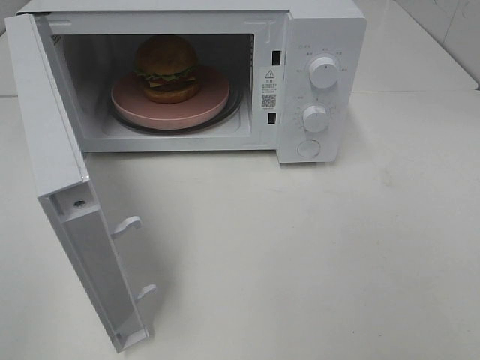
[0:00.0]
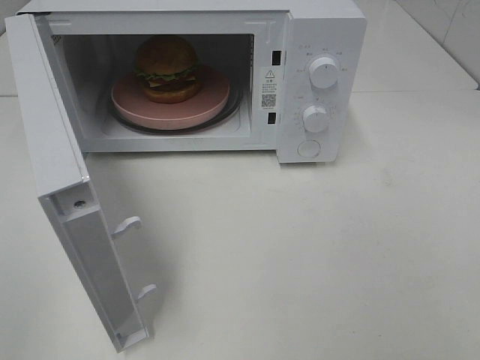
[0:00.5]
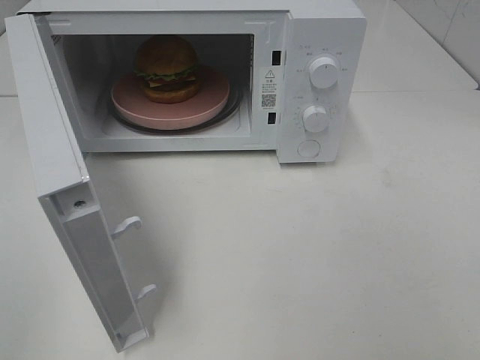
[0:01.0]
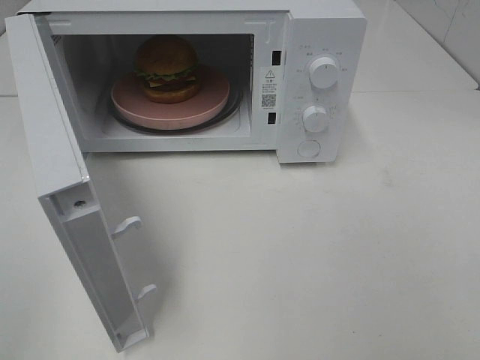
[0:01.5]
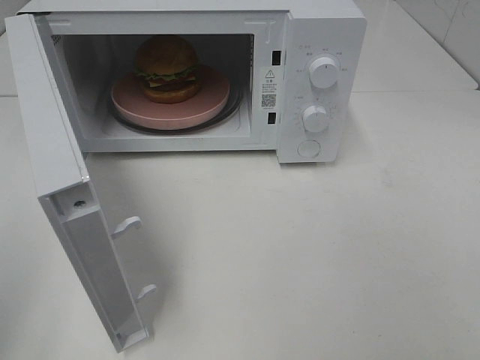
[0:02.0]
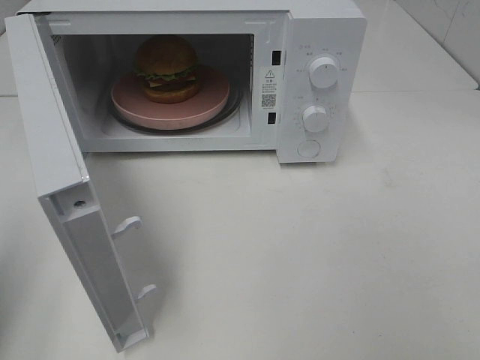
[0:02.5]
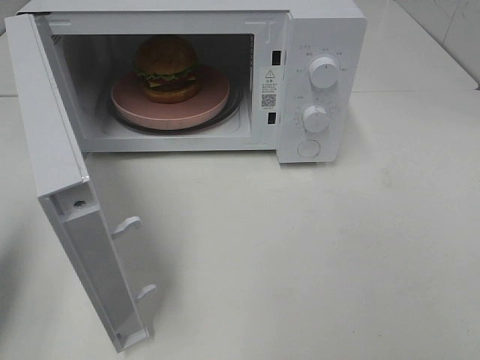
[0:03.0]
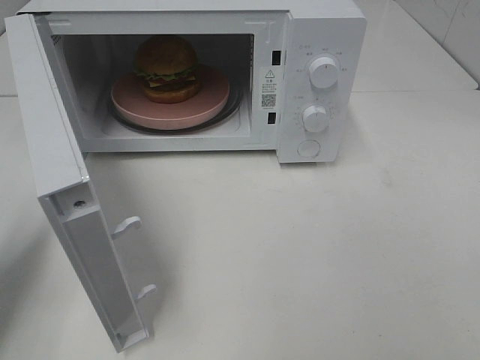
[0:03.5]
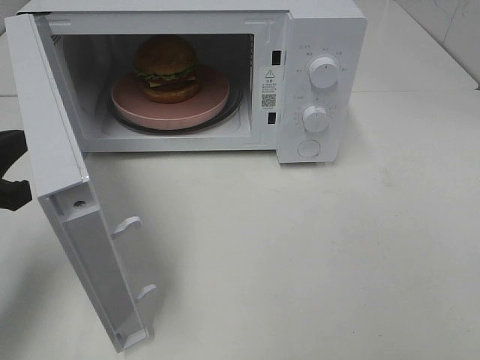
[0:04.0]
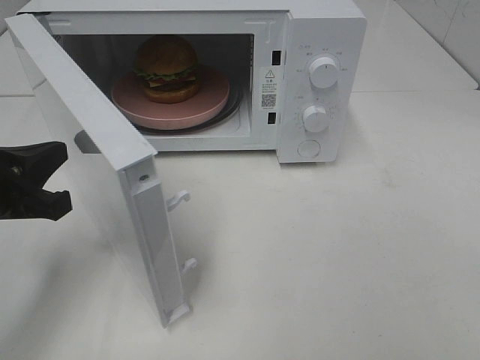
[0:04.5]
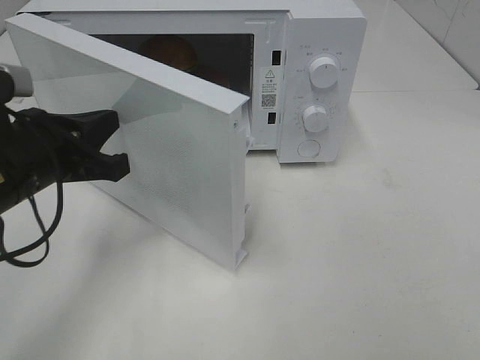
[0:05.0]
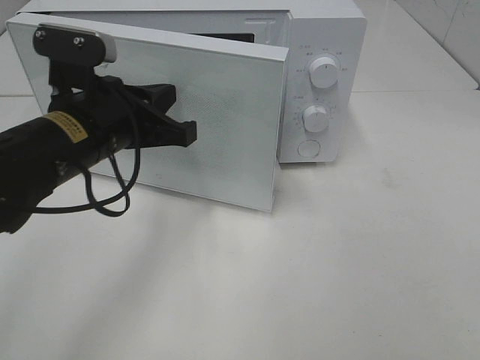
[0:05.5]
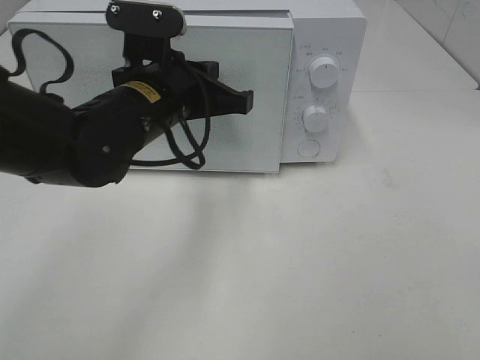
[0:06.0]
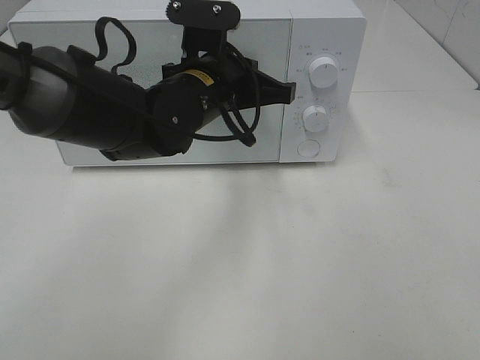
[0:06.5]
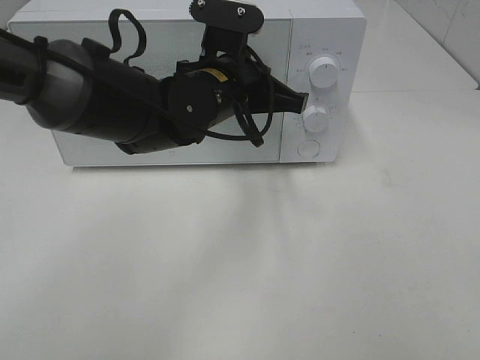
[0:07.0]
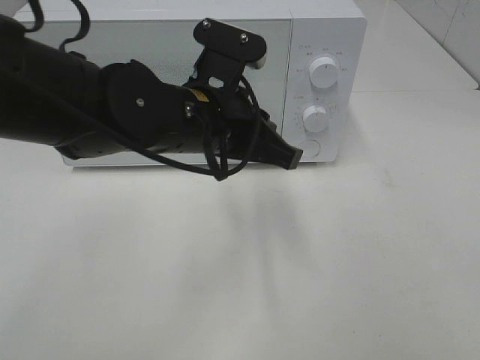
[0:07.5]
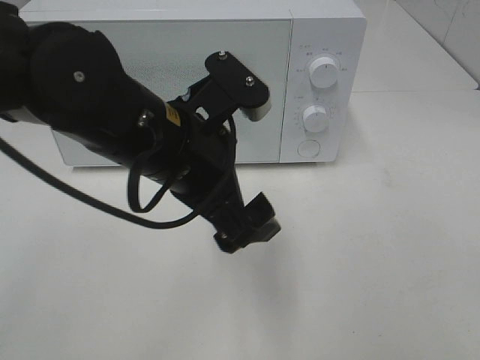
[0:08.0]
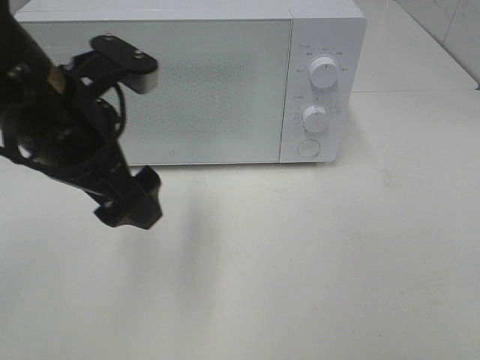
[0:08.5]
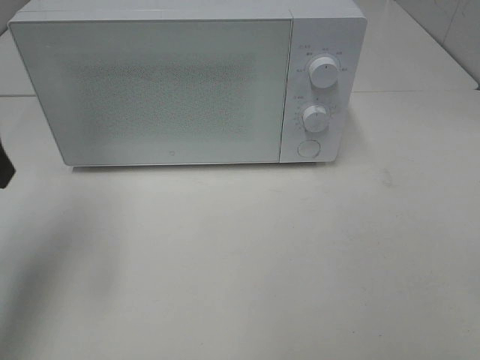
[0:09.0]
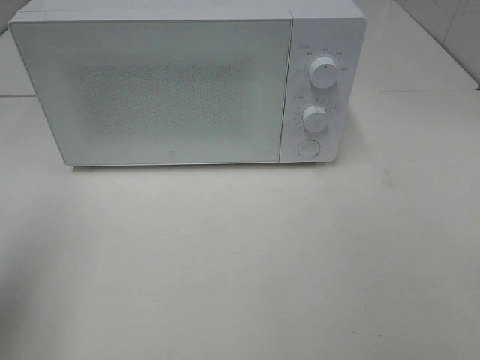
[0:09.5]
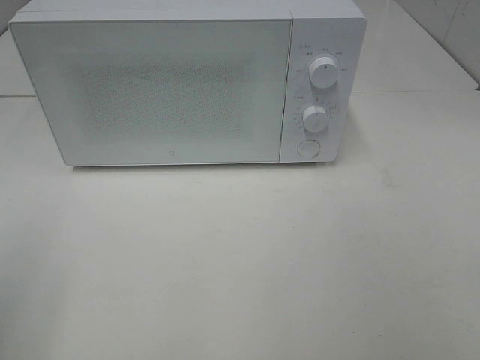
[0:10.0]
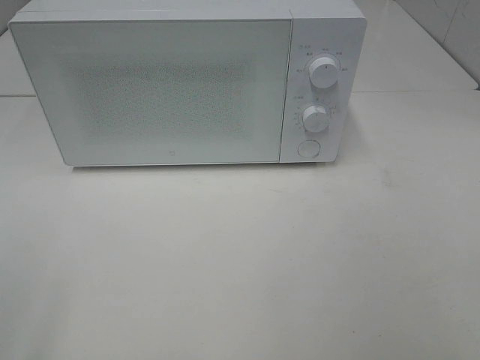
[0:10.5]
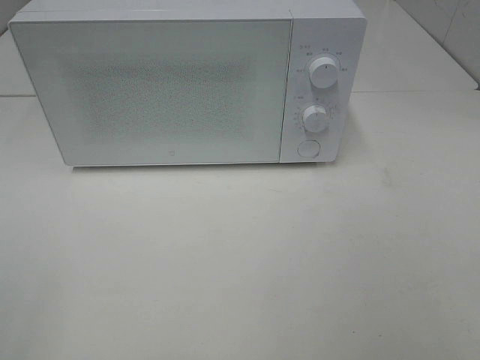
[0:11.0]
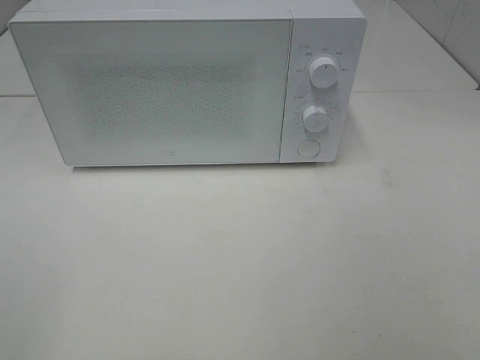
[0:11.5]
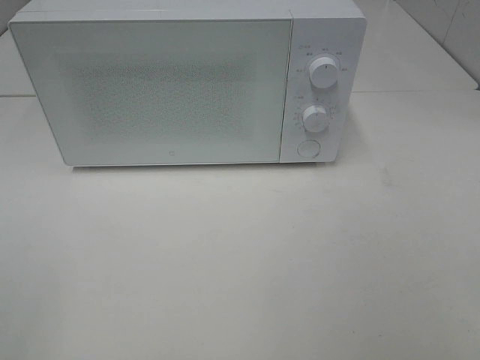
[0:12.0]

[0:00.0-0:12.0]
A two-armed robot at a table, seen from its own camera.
Task of the whole recording: Heat the burger.
Step, 0:00.0 to 0:07.0: Left hand: close the microwave door.
0:02.0 to 0:04.0: The left gripper is displaced forward and downward by roughly 20 cm.
0:04.0 to 0:06.0: The left gripper travels to the right and forward by some 20 cm.
0:06.0 to 0:08.0: The left gripper heads backward, covering some 10 cm, and opens.
0:08.0 to 0:10.0: The left gripper goes about 30 cm to the left and backward.

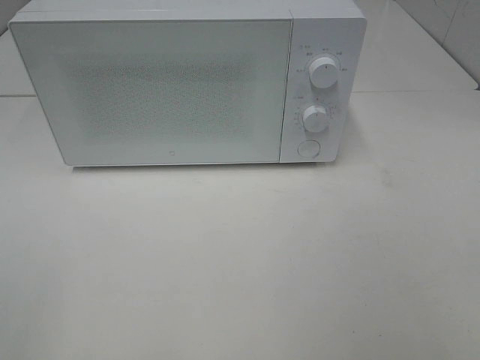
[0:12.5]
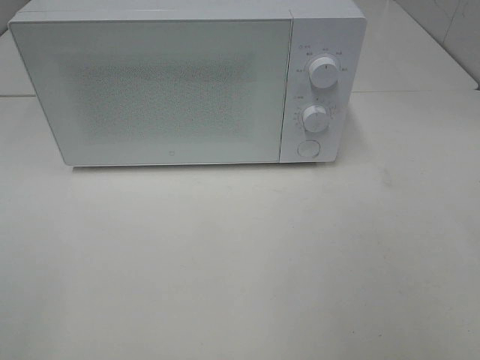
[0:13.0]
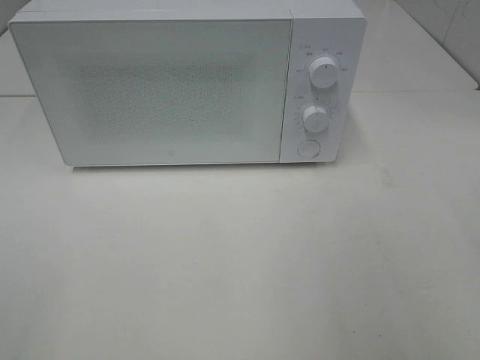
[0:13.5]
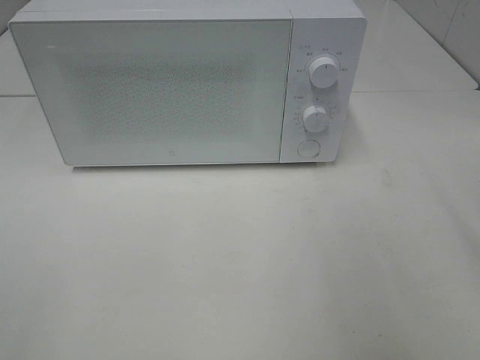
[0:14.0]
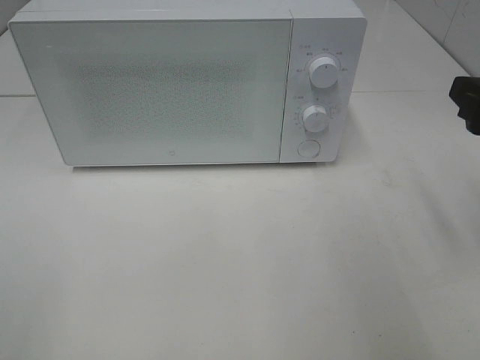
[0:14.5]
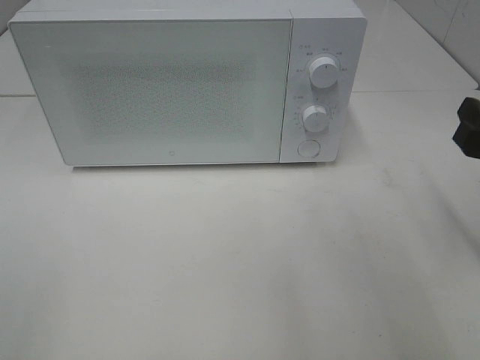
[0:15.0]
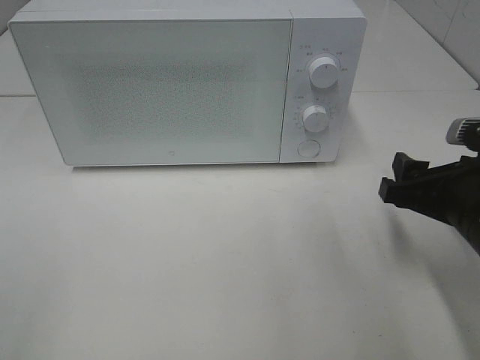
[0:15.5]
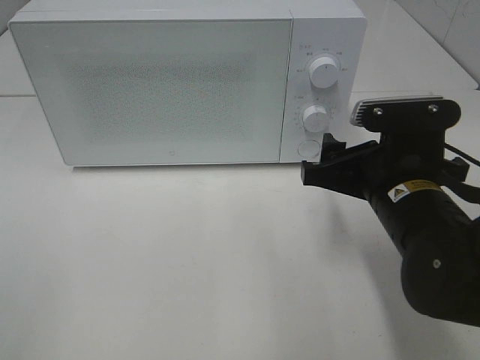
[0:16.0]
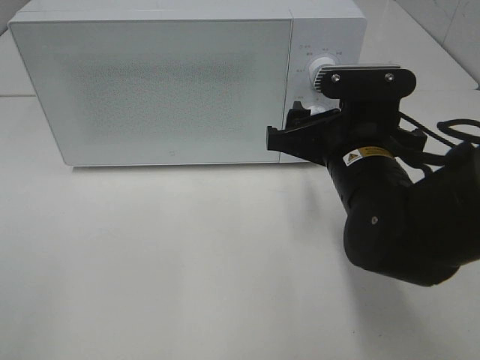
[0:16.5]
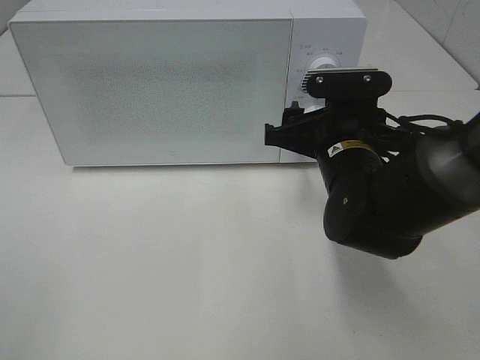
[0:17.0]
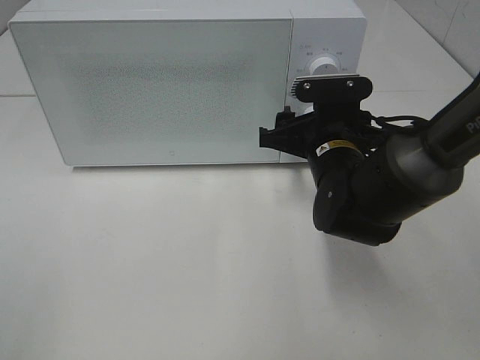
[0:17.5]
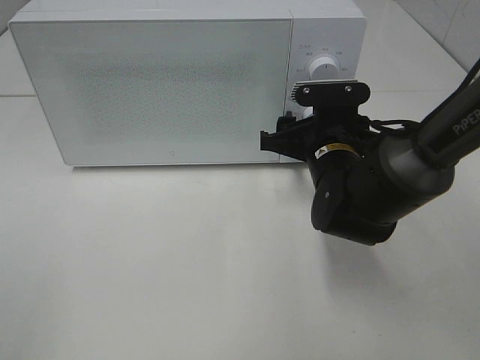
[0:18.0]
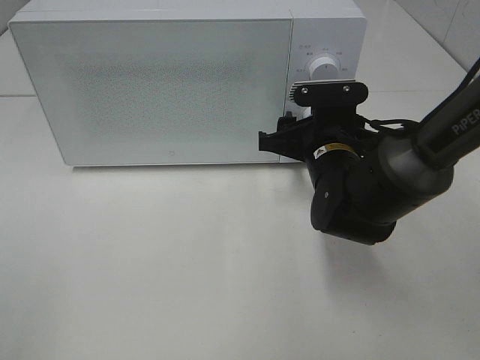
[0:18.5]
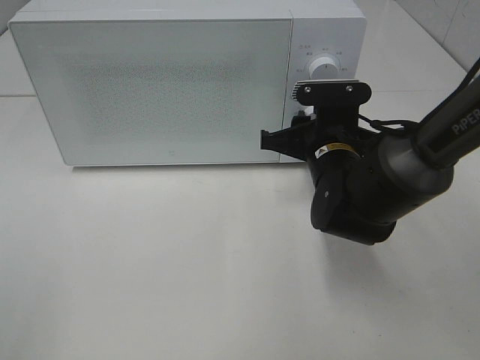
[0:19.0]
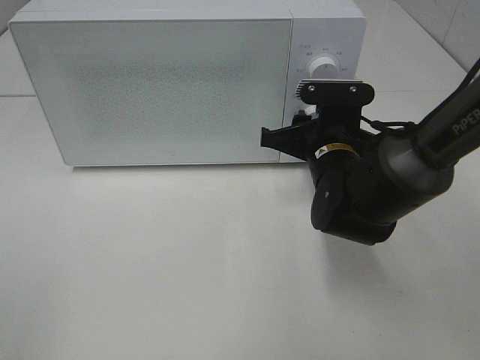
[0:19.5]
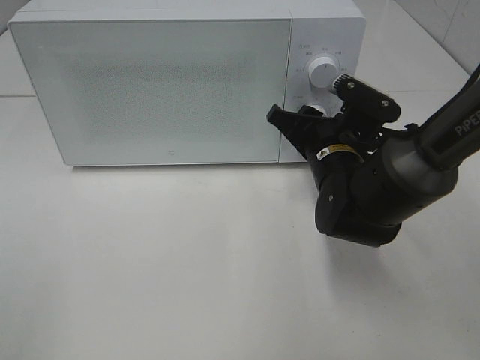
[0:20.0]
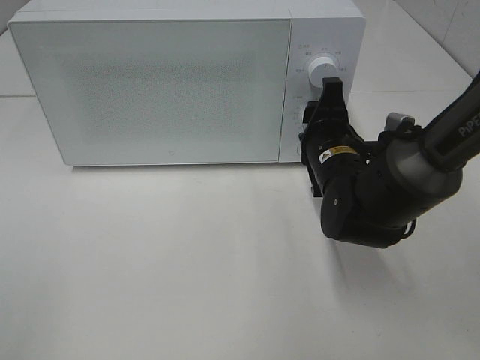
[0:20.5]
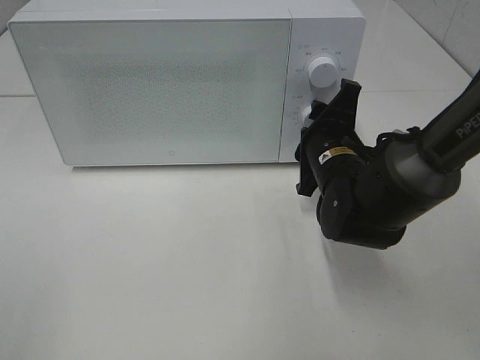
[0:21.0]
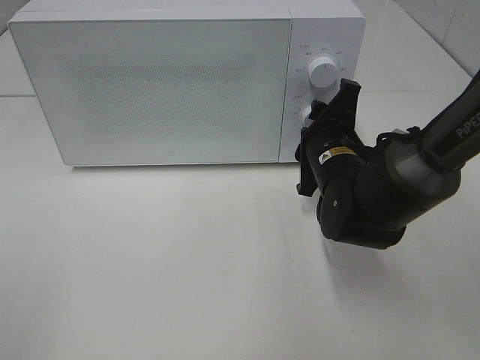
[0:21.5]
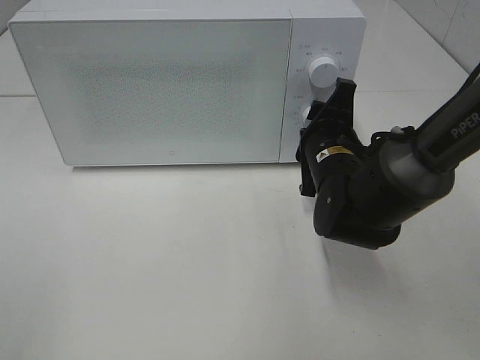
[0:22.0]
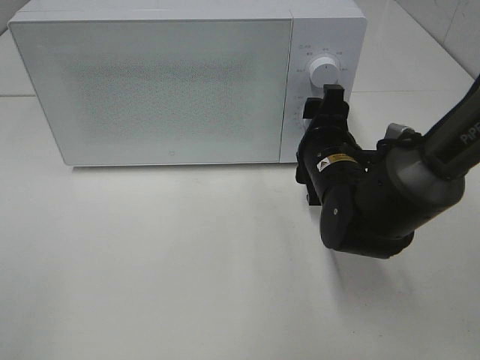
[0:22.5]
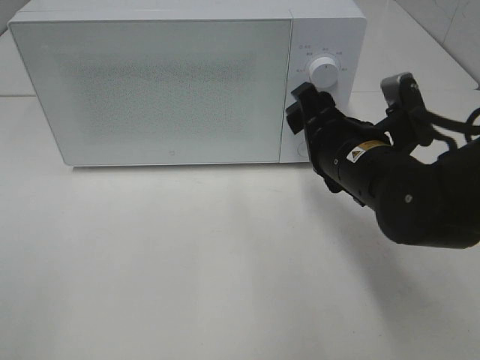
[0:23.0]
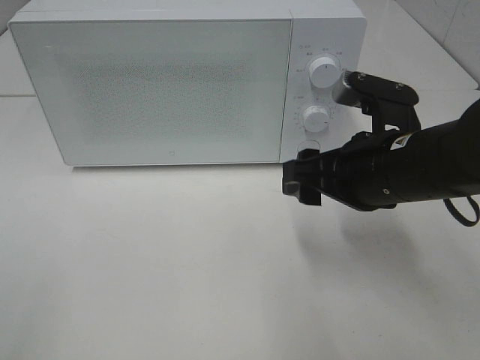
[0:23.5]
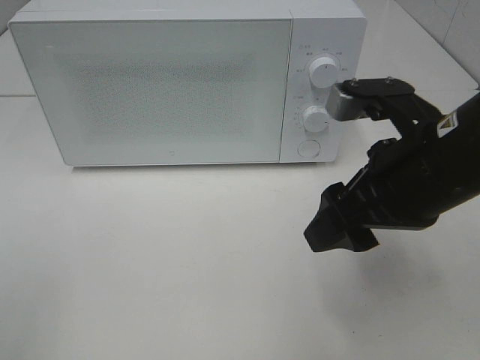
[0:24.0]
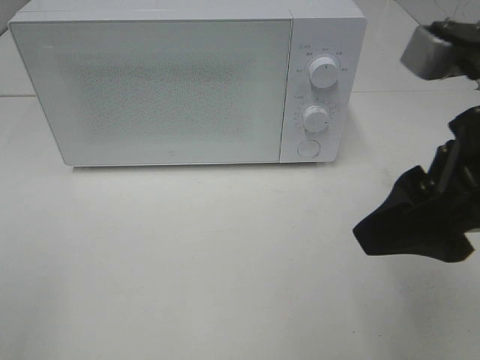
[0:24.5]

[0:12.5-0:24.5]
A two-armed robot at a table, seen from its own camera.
Task of the whole recording: Heat the burger.
Step, 0:12.5 to 0:22.0: Right hand: twist timer button.
0:12.5 to 0:14.5: The right gripper heads forward, covering about 20 cm.
0:14.5 to 0:16.5: The right gripper goes approximately 15 cm to the left and downward.
0:16.5 to 0:18.5: The right gripper moves forward, roughly 5 cm.
0:20.5 to 0:22.5: The grippers move only a little.
0:22.5 to 0:24.5: The right gripper moves upward and backward, some 25 cm.

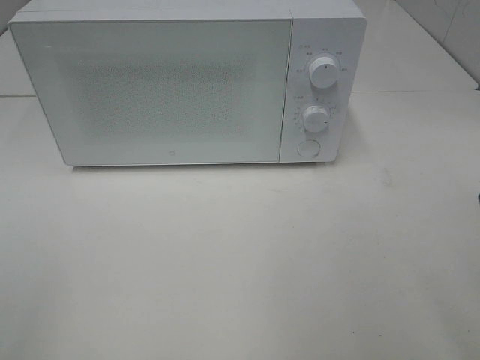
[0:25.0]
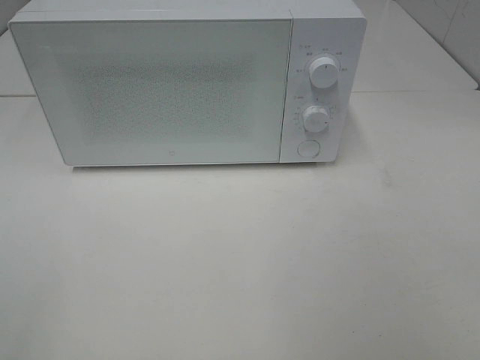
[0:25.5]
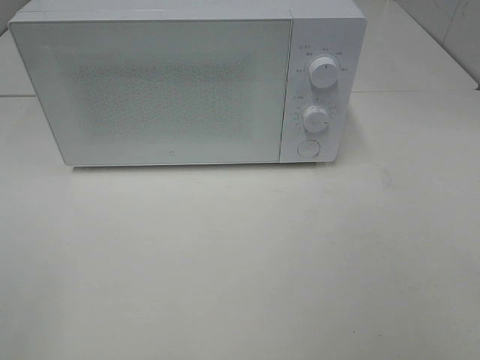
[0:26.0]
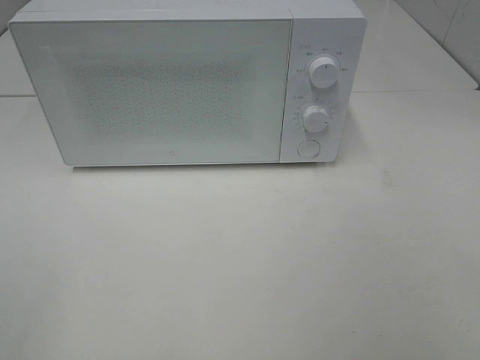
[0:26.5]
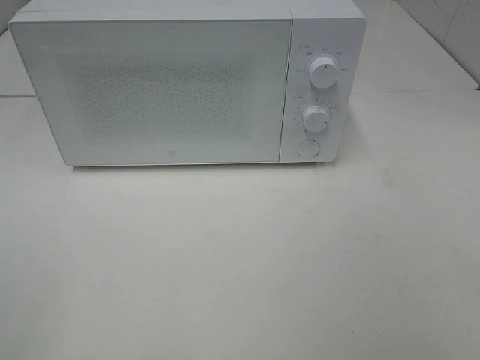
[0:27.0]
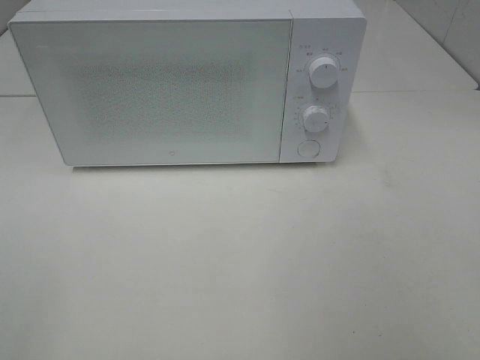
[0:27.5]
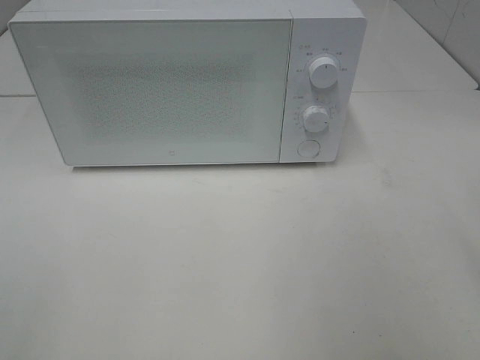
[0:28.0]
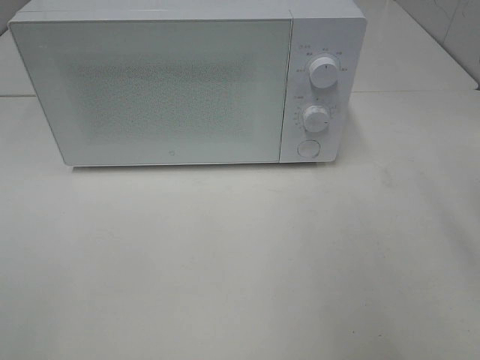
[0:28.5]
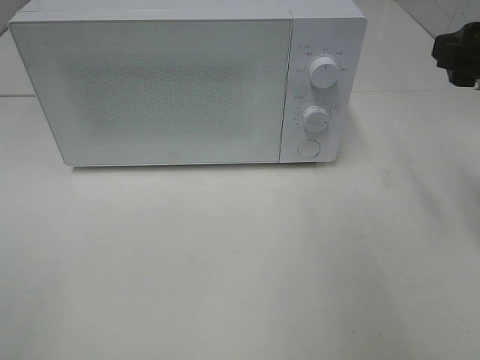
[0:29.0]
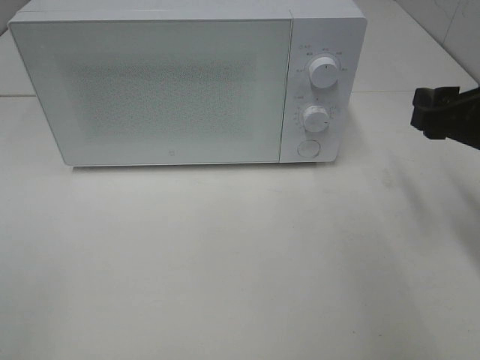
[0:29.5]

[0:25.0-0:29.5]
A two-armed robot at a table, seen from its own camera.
Task of the whole recording: Heat the burger.
0:27.0 to 0:29.5: The right gripper is displaced forward by approximately 25 cm.
